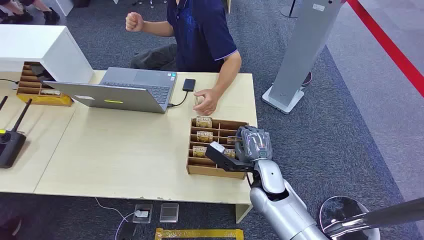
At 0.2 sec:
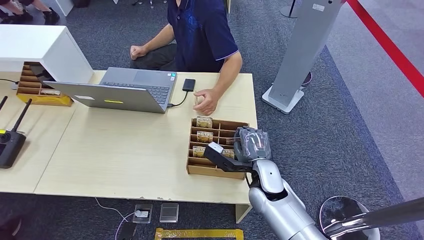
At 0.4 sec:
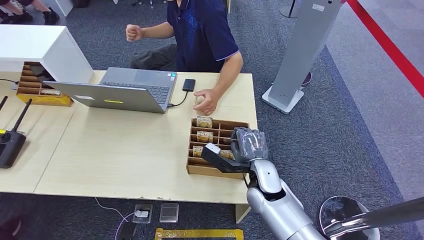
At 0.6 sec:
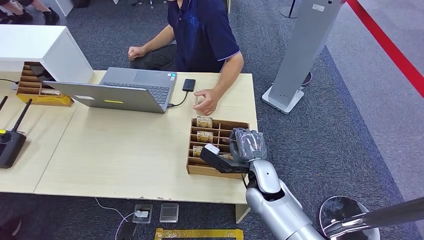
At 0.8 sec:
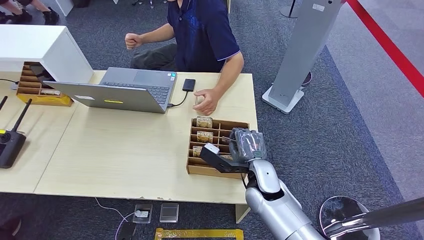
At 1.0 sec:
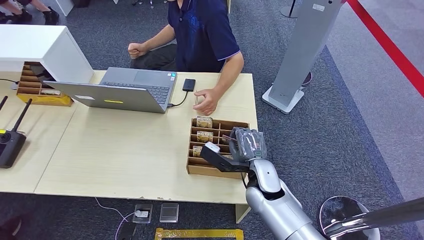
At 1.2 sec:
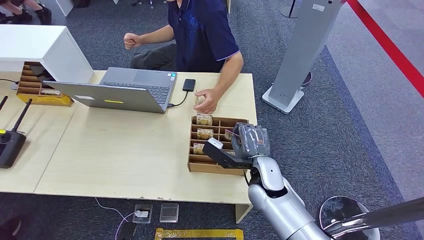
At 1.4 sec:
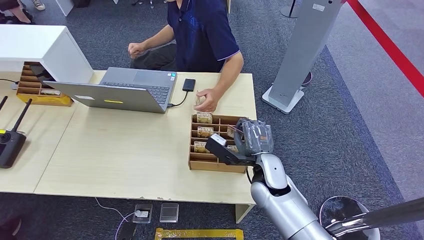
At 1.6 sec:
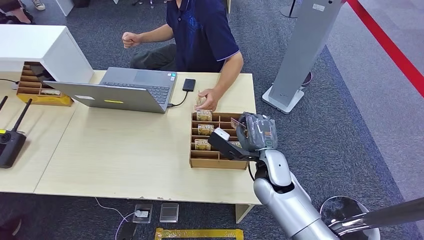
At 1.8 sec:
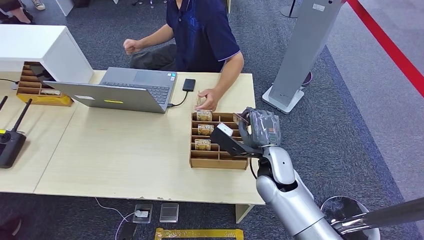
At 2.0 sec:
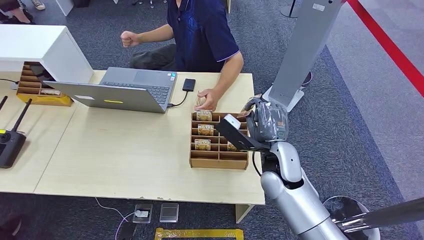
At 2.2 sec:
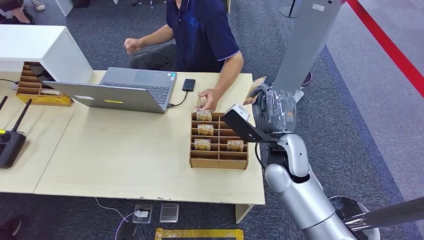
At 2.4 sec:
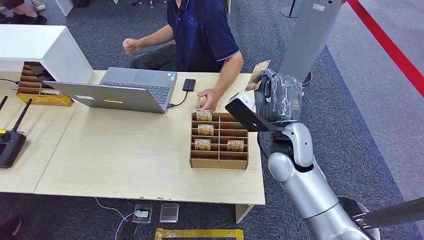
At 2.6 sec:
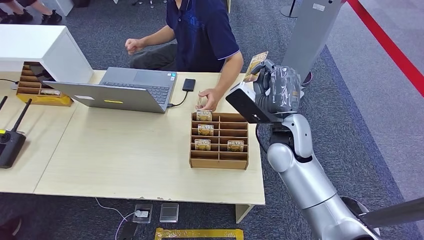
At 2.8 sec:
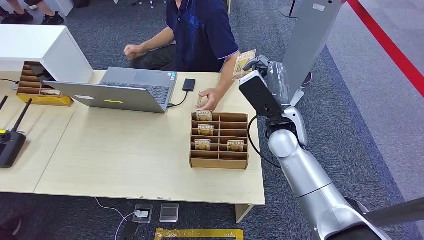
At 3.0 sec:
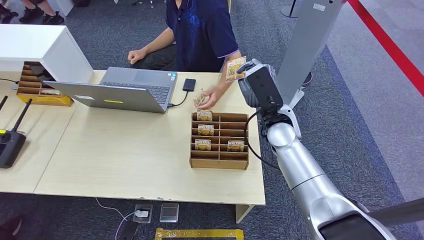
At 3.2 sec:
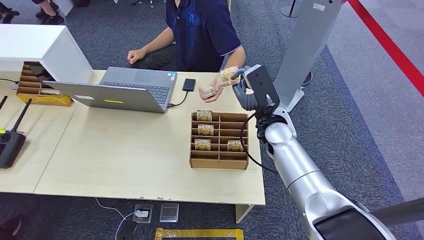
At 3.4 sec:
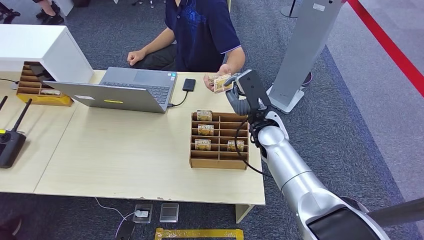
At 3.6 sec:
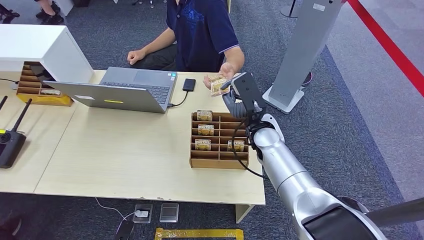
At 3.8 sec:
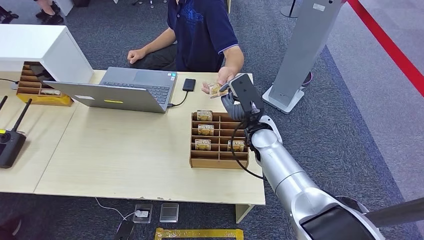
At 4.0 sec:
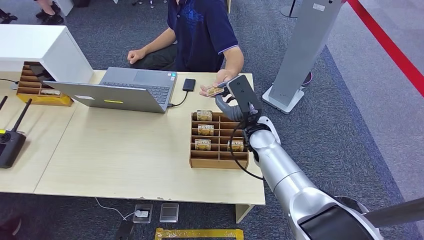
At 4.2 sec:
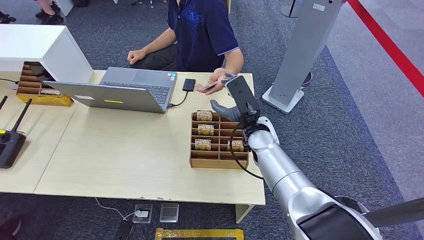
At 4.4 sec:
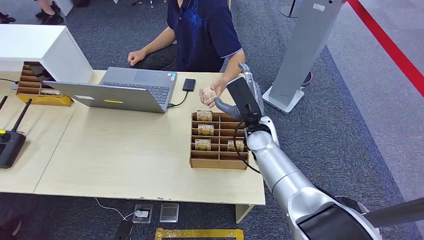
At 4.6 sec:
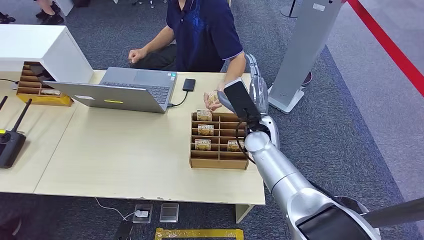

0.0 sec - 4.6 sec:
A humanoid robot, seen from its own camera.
Step, 0.0 sec - 2.0 sec: Pick up the room card from the card holder.
Step, 3.0 sec - 4.4 sec: Hand the room card to the target.
1.6 sec - 3.0 sec: The right hand moves upward and forward, approximately 10 cm.
3.0 sec - 4.6 sec: The right hand moves approximately 5 cm.

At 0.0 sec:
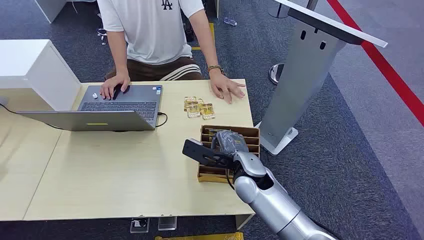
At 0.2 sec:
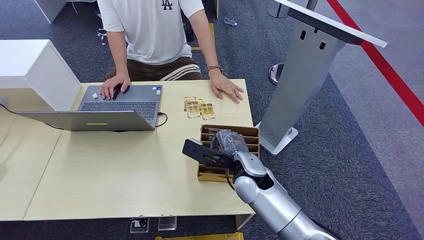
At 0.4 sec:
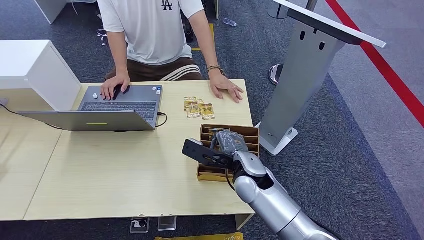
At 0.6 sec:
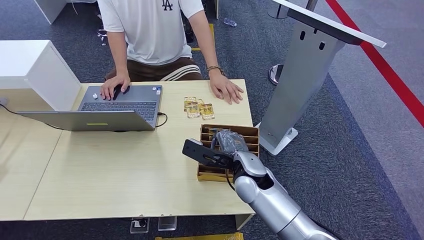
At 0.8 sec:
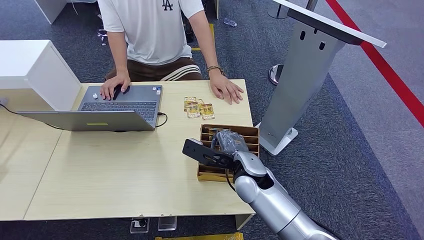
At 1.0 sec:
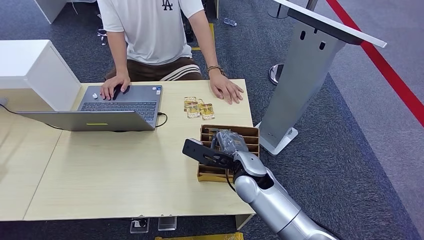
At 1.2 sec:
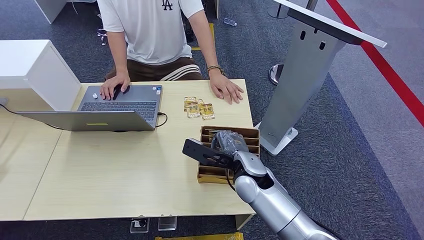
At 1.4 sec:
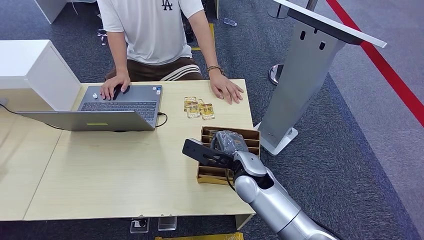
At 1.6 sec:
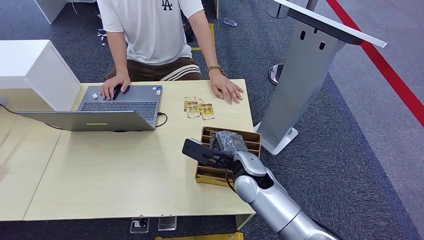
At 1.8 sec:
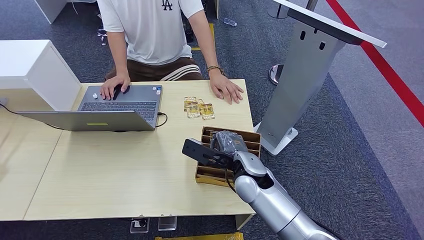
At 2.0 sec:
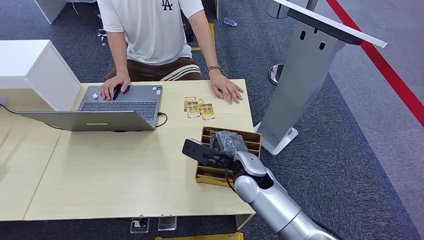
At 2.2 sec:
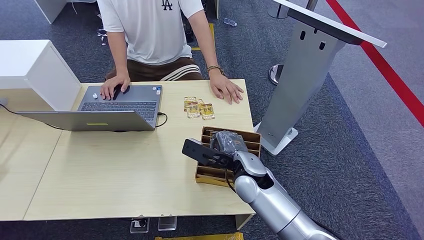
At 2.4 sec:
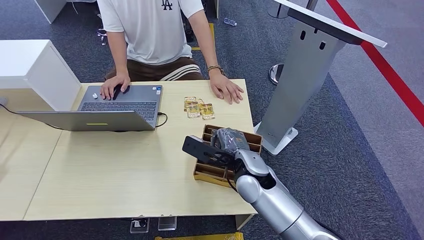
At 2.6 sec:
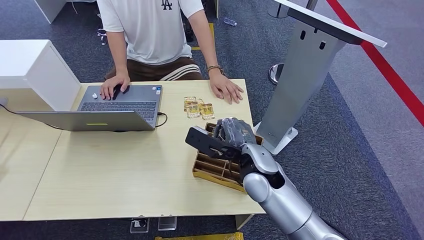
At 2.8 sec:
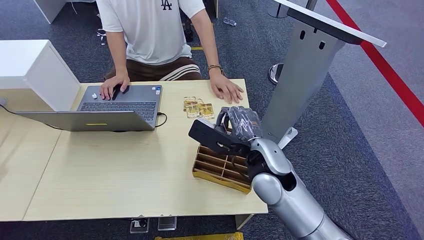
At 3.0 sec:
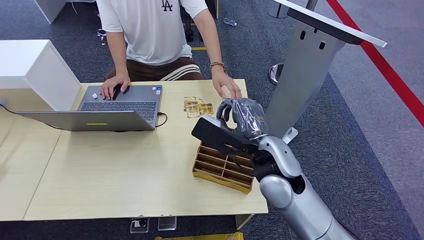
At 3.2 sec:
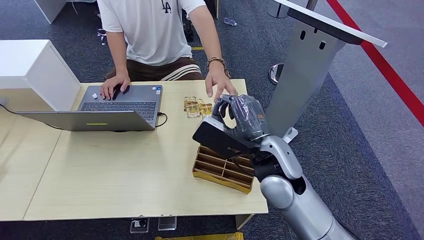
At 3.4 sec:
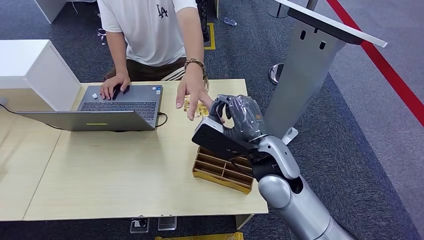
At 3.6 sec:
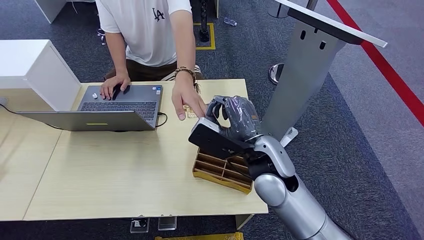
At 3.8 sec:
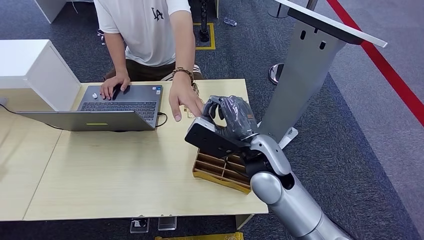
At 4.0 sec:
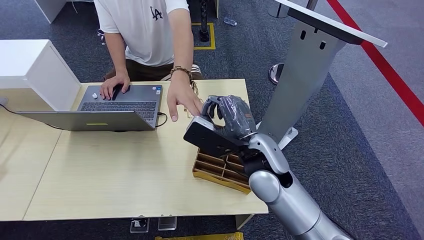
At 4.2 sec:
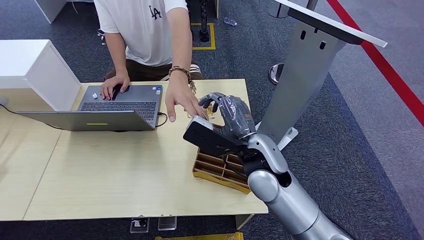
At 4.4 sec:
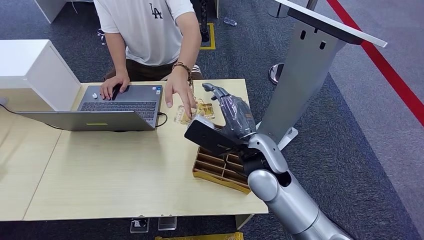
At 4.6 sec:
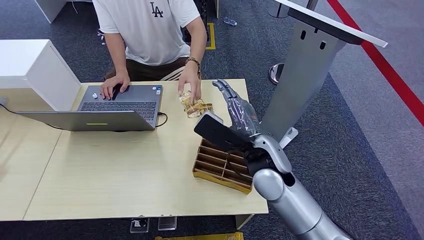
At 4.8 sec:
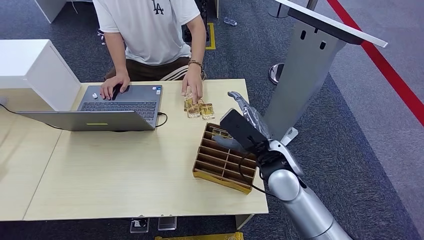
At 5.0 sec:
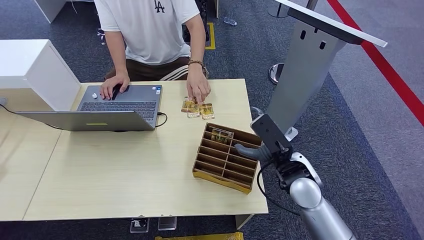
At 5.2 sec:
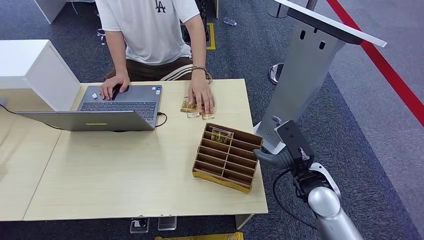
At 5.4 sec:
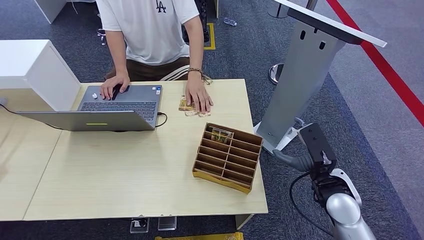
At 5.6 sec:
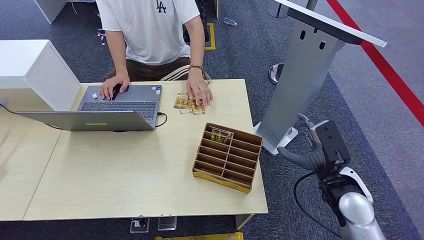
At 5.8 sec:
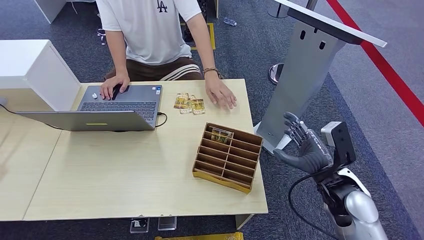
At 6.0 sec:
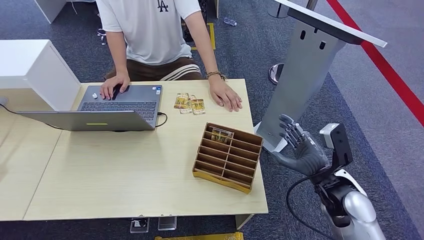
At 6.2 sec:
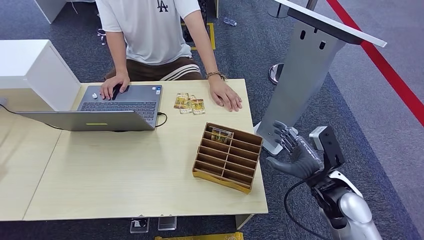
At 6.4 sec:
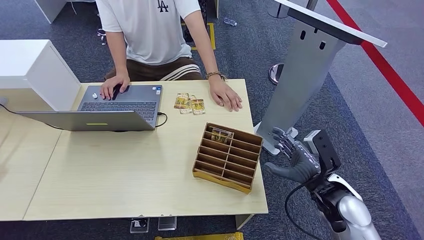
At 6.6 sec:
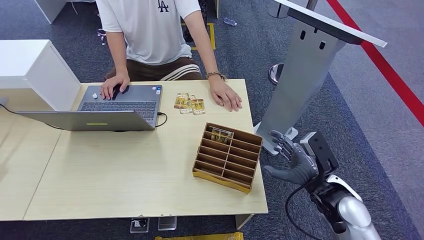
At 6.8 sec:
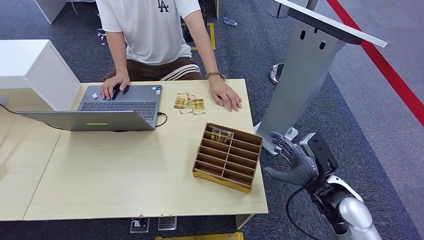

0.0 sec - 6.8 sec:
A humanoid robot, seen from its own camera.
Step, 0.0 sec - 3.6 sec: Pick up the room card from the card holder.
Step, 3.8 sec - 6.8 sec: Hand the room card to the target.
1.4 sec - 2.8 sec: The right hand moves upward, about 10 cm.
4.0 sec - 5.4 sec: The right hand is displaced to the right and downward by about 20 cm.
